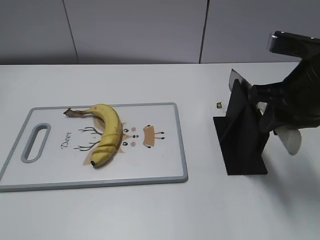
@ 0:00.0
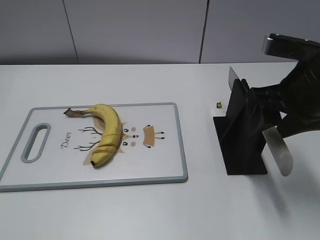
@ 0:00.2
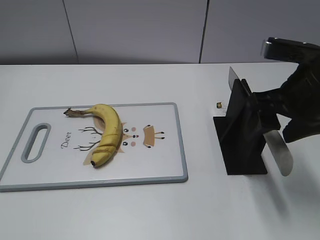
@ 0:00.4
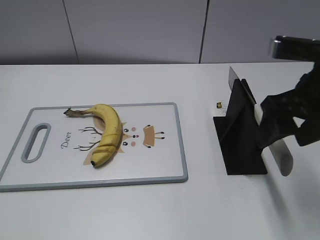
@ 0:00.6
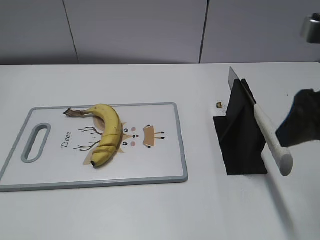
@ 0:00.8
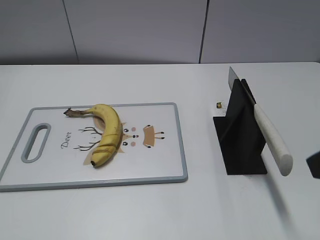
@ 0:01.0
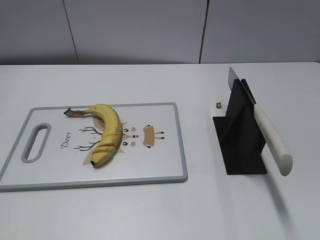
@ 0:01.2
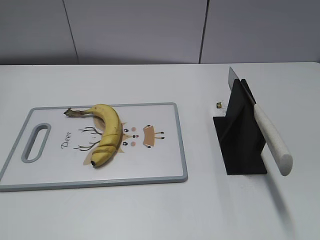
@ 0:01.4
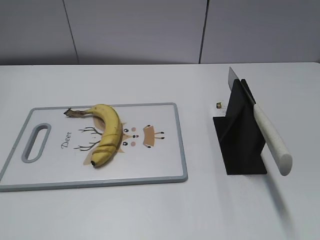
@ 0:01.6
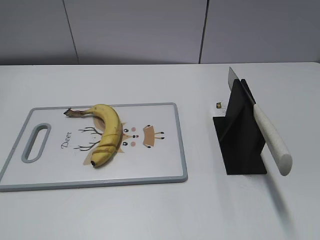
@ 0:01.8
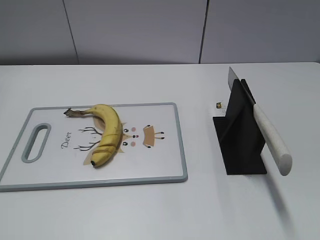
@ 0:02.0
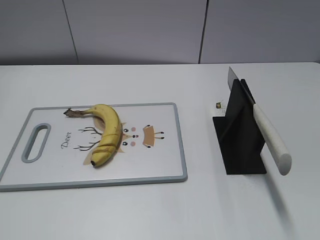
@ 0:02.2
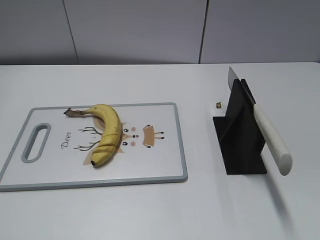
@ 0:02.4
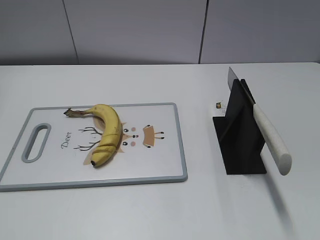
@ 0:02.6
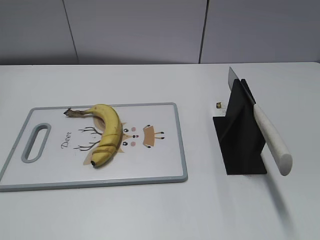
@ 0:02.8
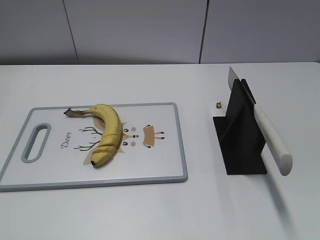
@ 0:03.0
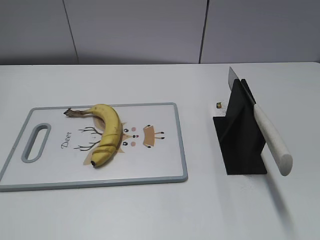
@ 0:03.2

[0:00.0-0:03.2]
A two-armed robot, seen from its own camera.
Task of the whole recording: cut banana.
Step, 0:00.0 to 0:03.2: Place the knife on the storage rack with your right hand.
0:00.0 to 0:01.6: The right gripper travels backward by roughly 25 cm, and opens its fingers.

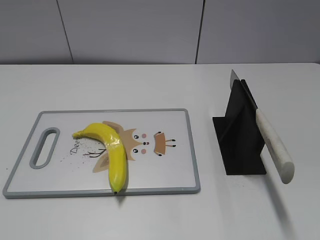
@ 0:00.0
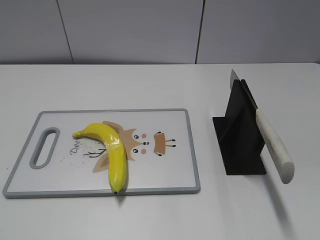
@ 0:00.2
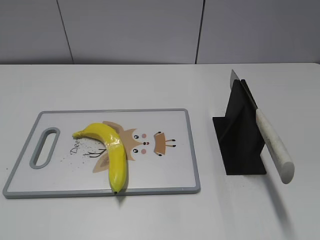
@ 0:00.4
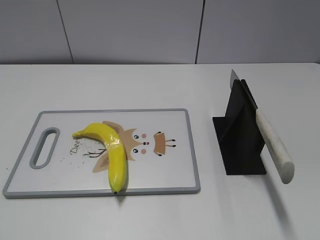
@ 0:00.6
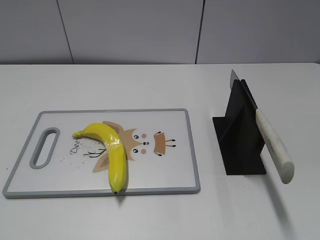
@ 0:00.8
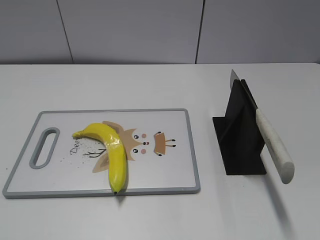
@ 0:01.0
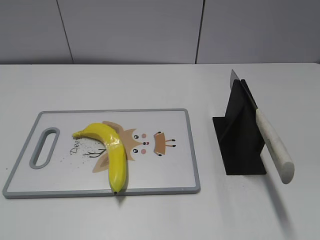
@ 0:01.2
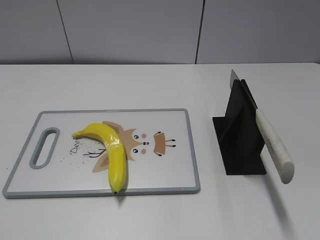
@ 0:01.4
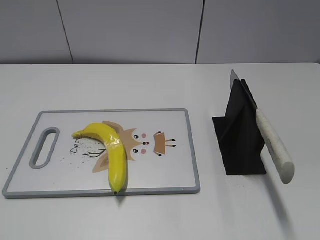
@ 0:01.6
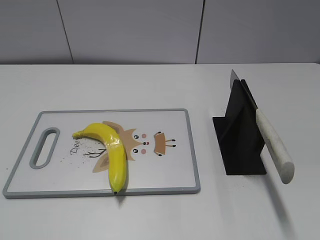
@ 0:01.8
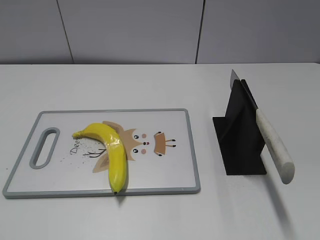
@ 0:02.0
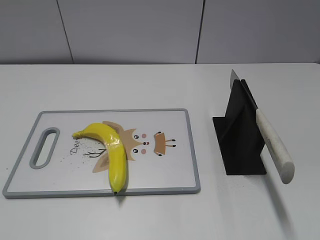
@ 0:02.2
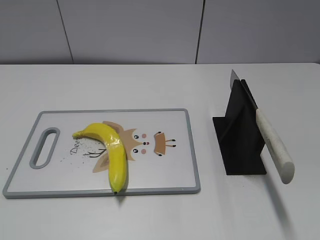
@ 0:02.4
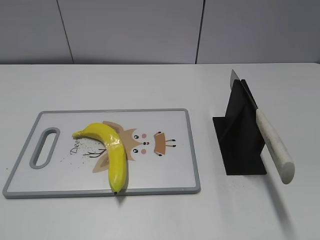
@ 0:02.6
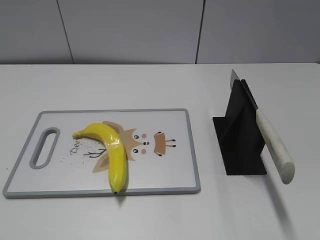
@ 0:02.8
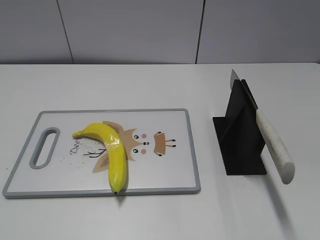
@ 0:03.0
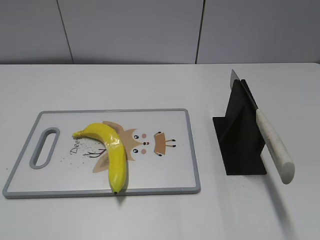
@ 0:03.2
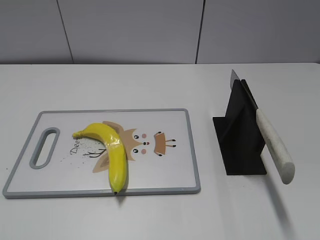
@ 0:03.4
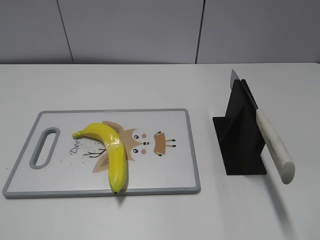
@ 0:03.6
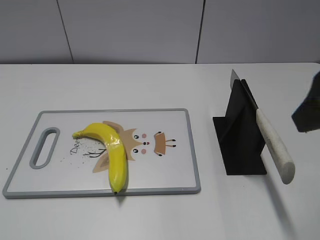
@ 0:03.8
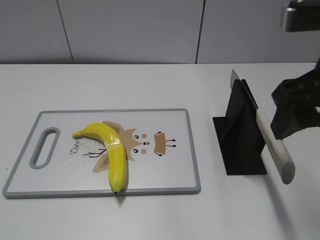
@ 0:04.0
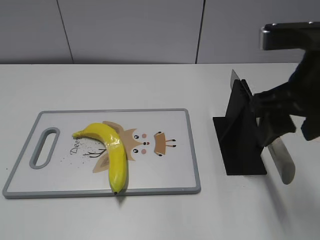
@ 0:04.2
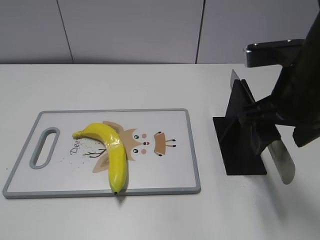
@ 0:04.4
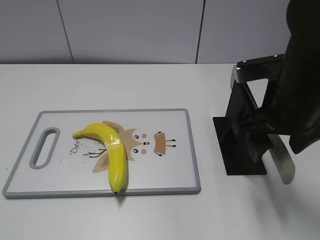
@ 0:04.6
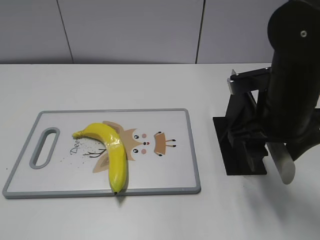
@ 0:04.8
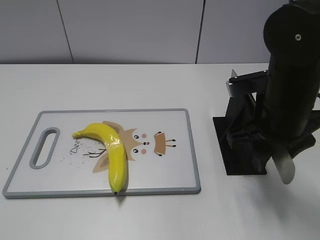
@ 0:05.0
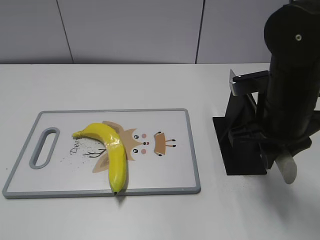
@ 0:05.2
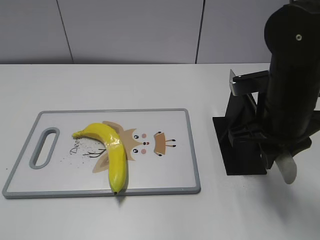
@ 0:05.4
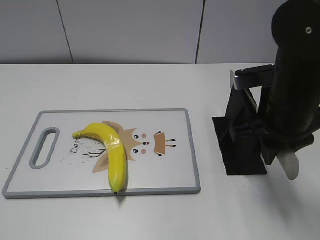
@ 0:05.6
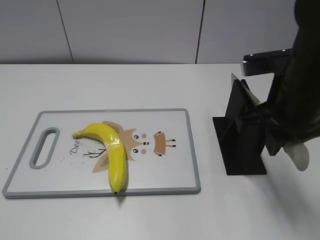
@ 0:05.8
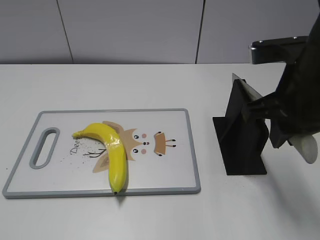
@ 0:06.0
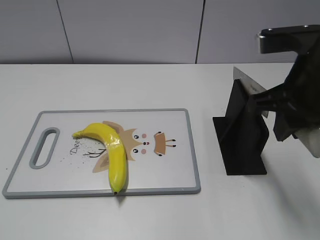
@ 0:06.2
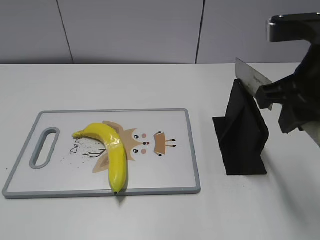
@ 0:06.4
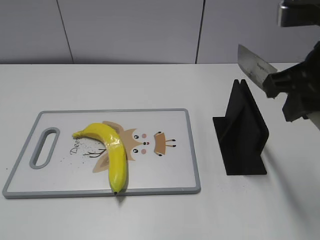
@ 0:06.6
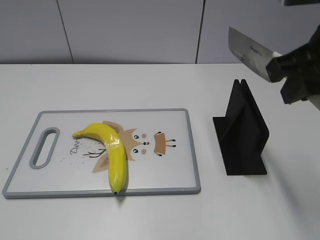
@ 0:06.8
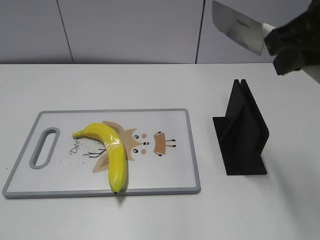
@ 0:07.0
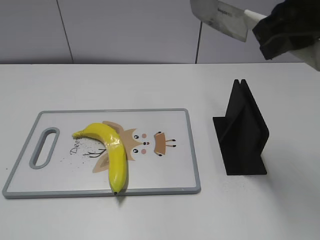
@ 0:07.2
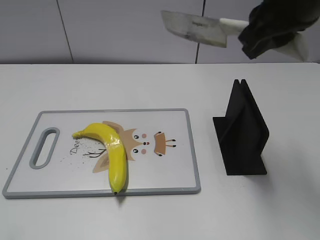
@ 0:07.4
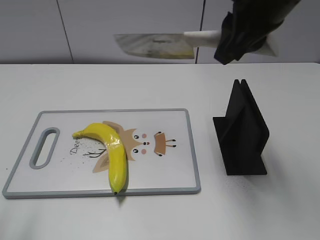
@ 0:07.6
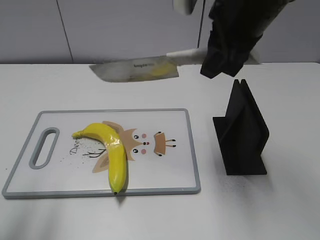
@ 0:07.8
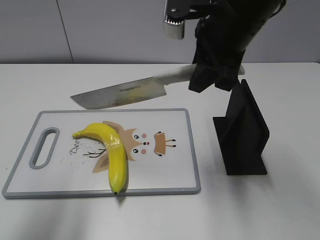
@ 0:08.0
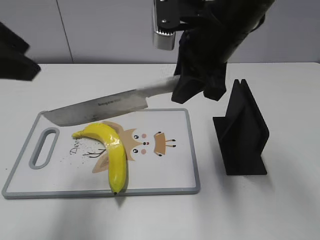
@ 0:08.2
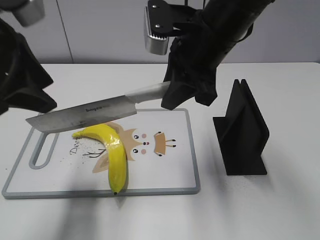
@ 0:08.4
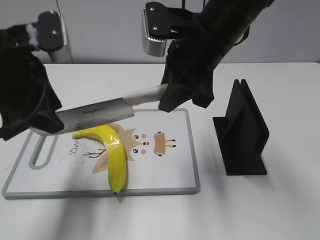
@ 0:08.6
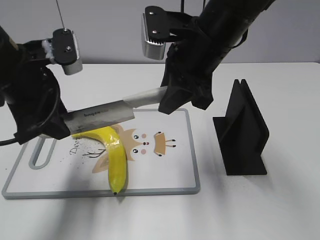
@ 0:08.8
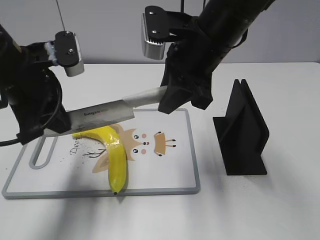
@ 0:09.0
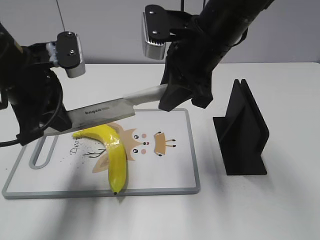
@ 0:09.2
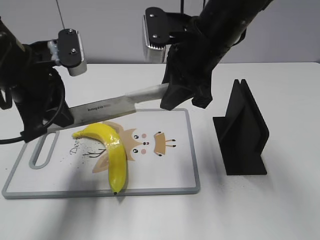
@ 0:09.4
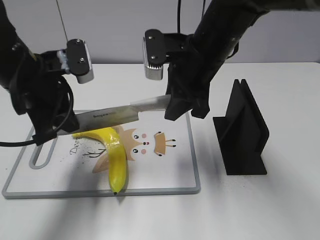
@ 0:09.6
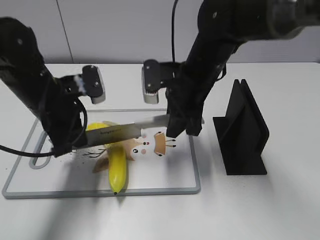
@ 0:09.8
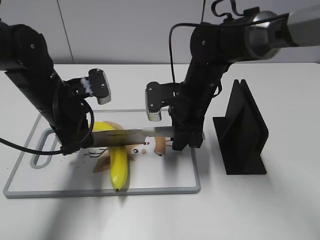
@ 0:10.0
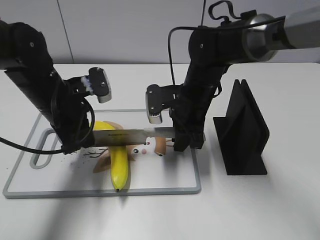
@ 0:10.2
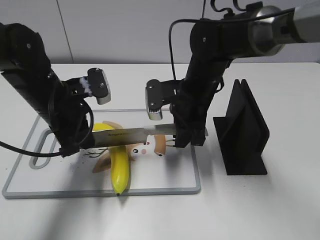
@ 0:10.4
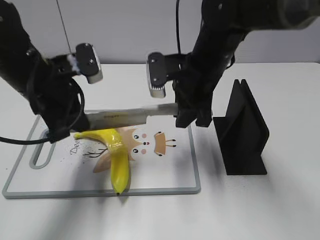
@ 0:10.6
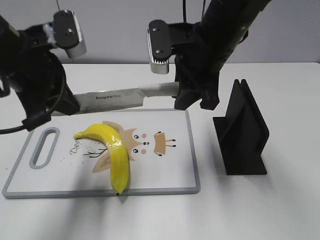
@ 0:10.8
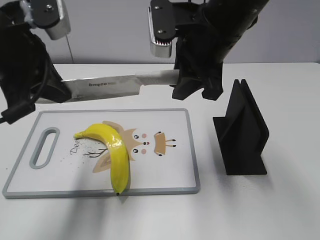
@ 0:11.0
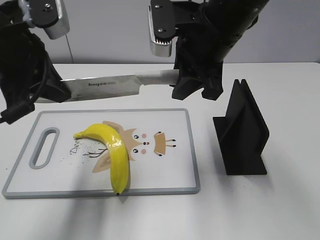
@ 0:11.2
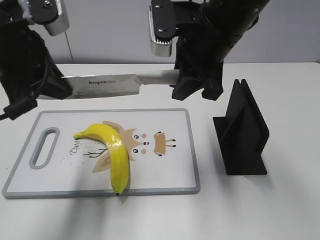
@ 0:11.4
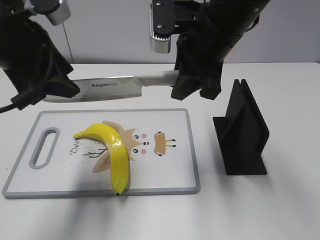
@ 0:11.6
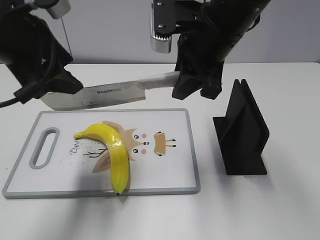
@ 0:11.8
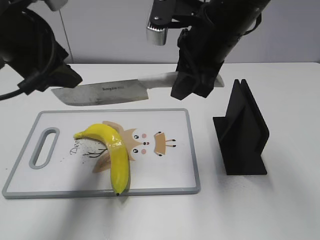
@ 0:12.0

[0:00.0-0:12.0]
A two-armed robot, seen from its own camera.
Task of the whole recording: cut plastic banana.
Step, 0:00.0 to 0:06.4: Grab the knife handle with your right hand.
Step, 0:06.8 to 0:11.2: Lift the knife with your right hand.
0:03.0 to 0:04.4: The right gripper shifts approximately 20 cm forward and to the left.
0:04.4 to 0:06.0: The right gripper closes up.
0:06.0 to 0:07.6: The right gripper travels upward and forward by some 10 cm; the left gripper moves forward and upward, some 10 cm.
0:07.6 to 0:09.0: The left gripper heads forward, to the right and downward, covering approximately 25 cm, and closes its fingers; the right gripper goes approximately 10 cm downward and to the left.
0:09.0 to 0:10.4: The right gripper is displaced downward by about 15 cm; the left gripper goes about 10 cm downward.
0:10.4 to 0:12.0: Both grippers travel together upward, some 15 cm. The left gripper opens its fingers.

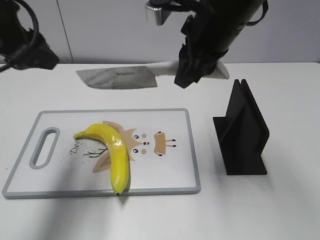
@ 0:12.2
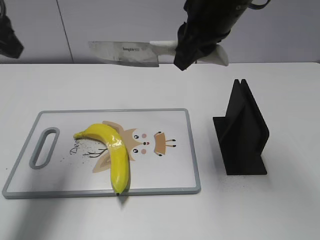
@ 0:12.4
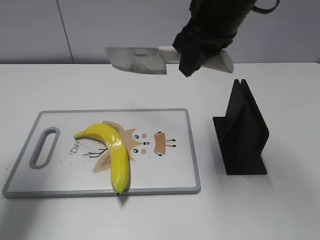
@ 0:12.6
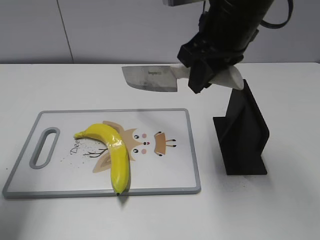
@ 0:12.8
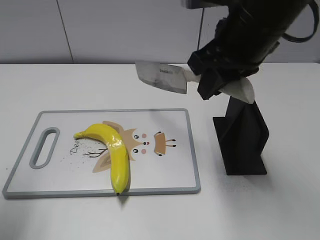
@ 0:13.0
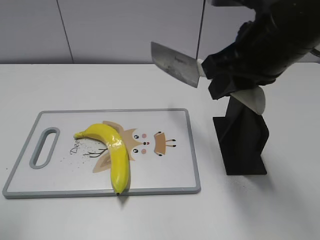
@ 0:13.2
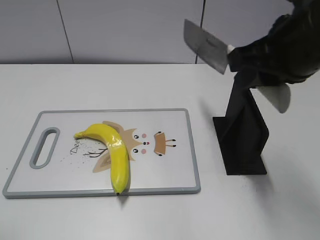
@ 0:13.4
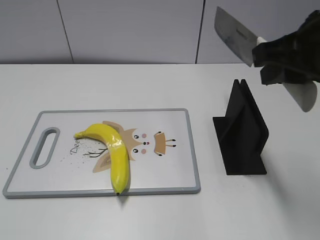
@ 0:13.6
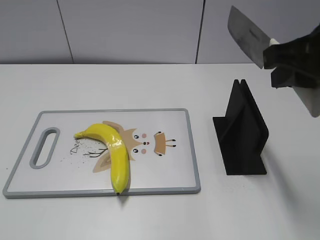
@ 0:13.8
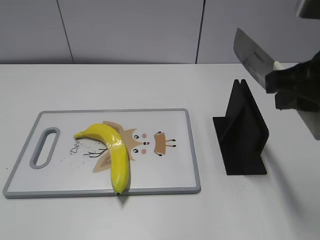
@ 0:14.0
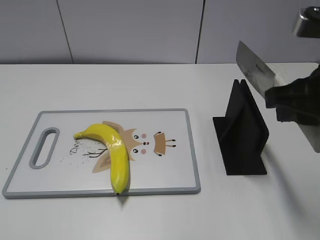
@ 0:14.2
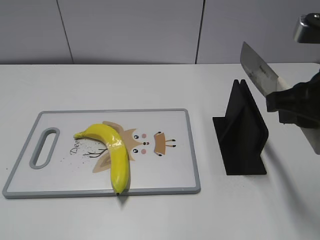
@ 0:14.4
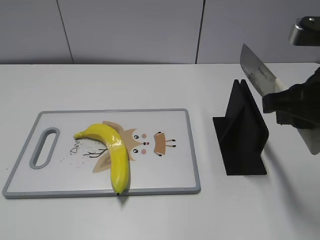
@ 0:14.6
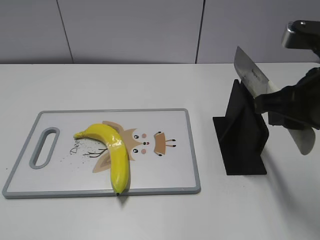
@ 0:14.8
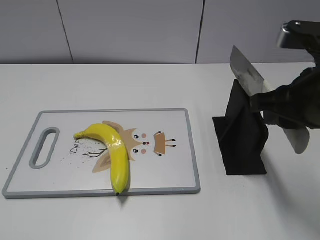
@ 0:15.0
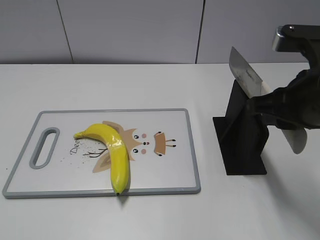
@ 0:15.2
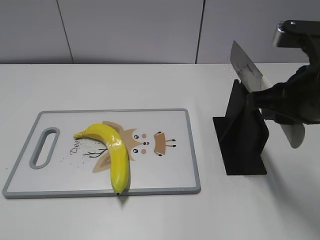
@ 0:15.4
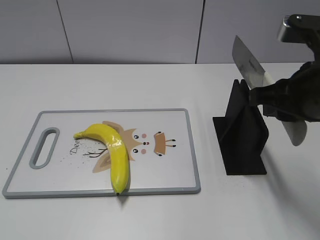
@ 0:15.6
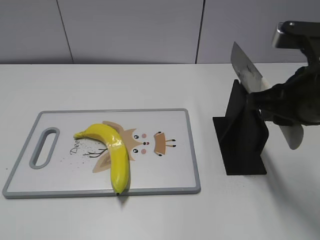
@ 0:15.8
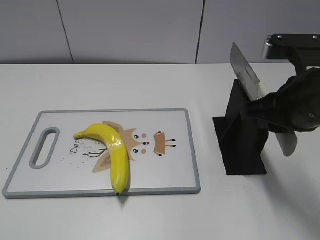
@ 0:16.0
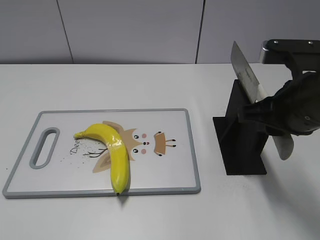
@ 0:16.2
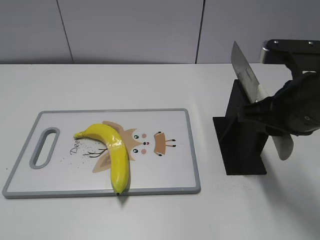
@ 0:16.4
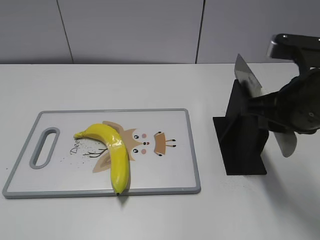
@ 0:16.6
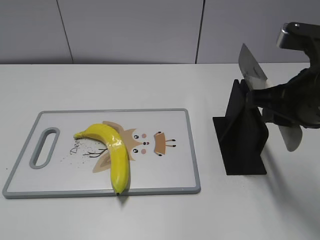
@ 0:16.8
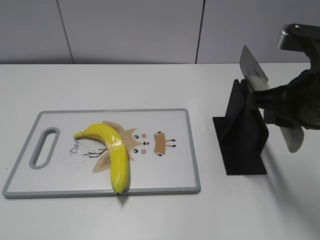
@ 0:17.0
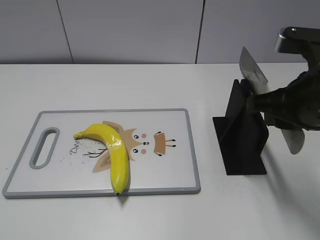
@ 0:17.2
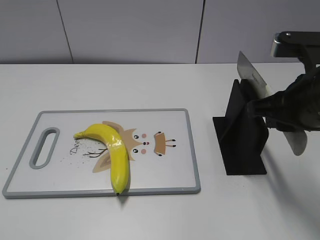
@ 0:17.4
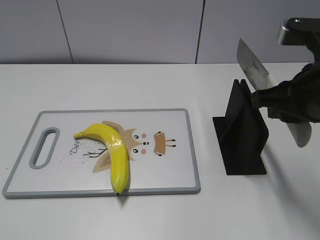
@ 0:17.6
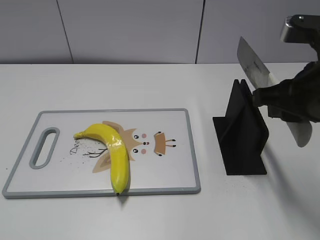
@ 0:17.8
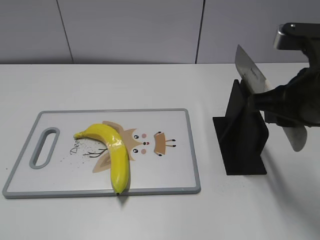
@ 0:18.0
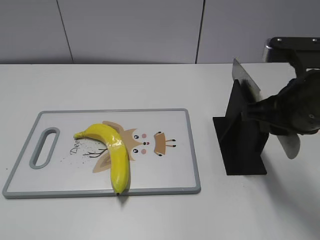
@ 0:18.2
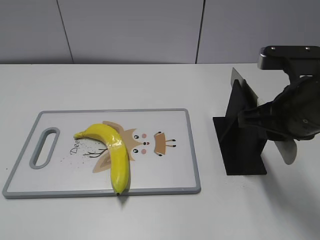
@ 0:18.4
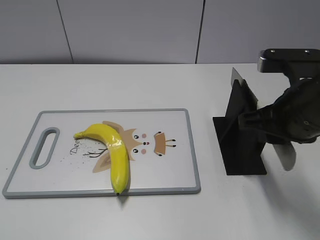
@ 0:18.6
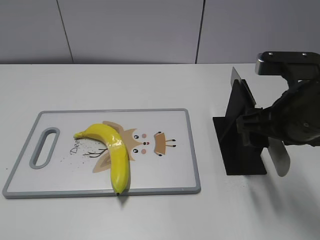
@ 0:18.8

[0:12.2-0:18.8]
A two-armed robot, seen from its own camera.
Task of the whole recording: cut plastic banana.
Step, 0:13.0 to 0:14.4: Lift the knife with your right hand.
0:12.2 to 0:13.8: The right gripper goes roughly 15 cm backward and to the right; the left gripper shifts about 25 cm backward and to the left.
0:13.8 to 0:15.4: The right gripper goes roughly 5 cm downward.
0:15.4 to 0:17.2: The grippers move only a little.
0:17.2 to 0:18.8: The right gripper opens its fingers.
